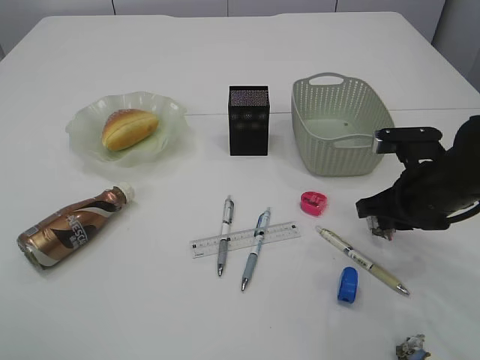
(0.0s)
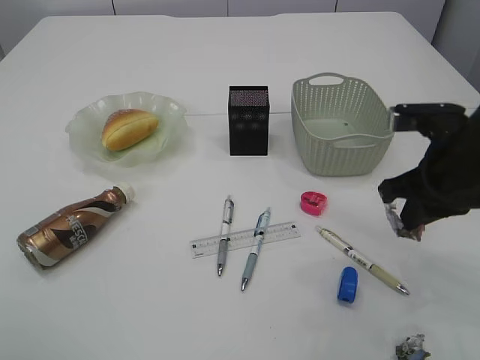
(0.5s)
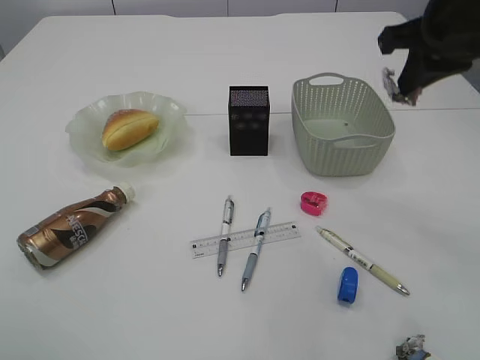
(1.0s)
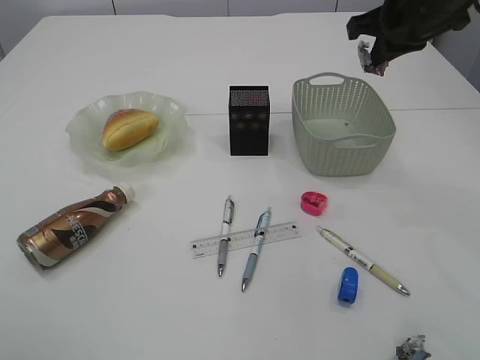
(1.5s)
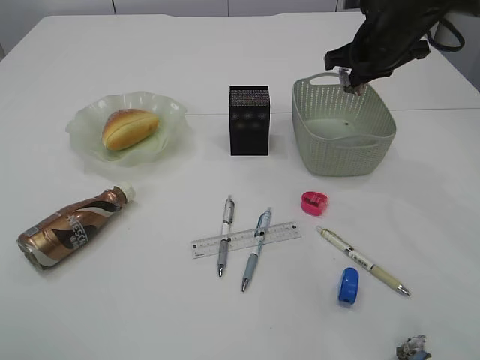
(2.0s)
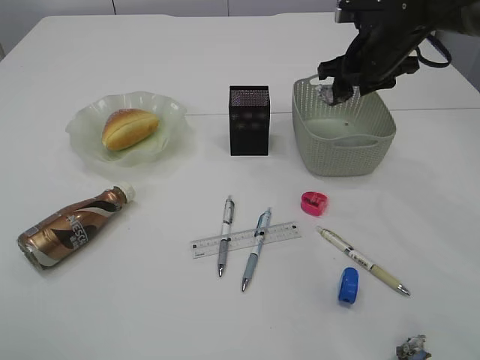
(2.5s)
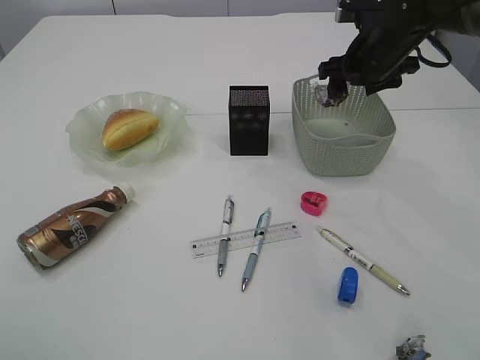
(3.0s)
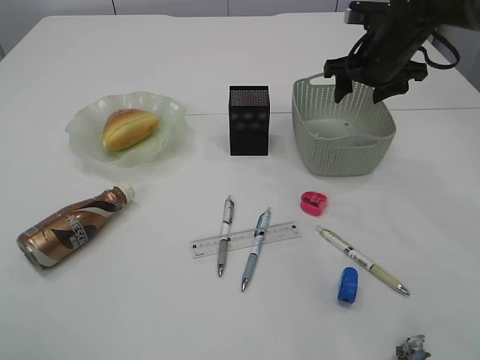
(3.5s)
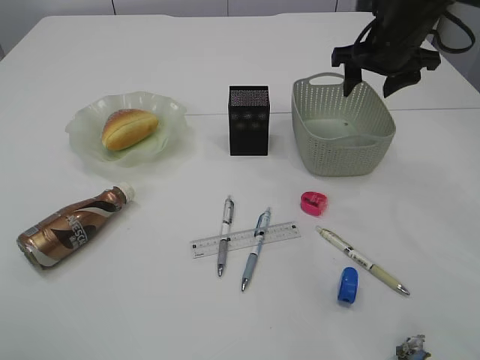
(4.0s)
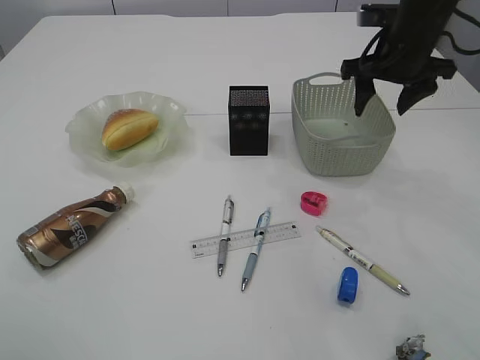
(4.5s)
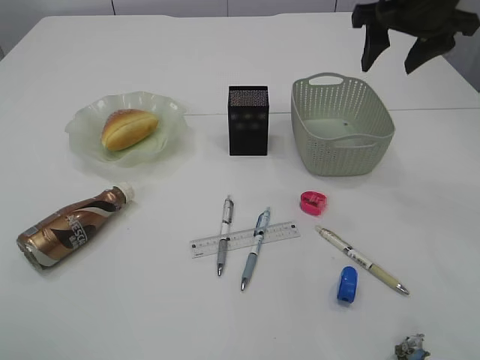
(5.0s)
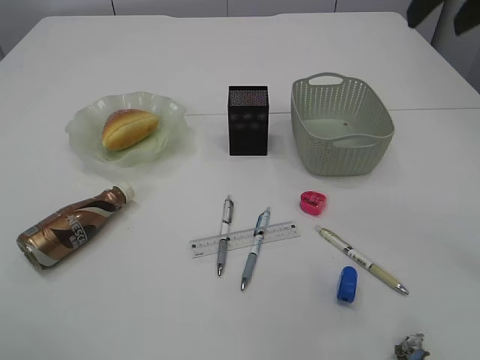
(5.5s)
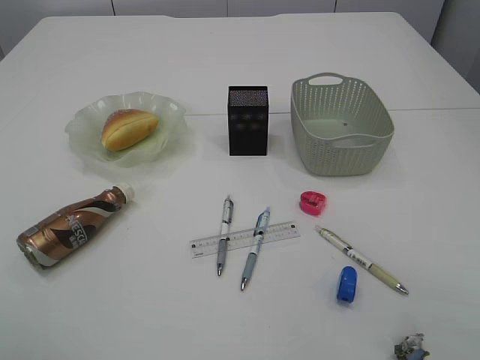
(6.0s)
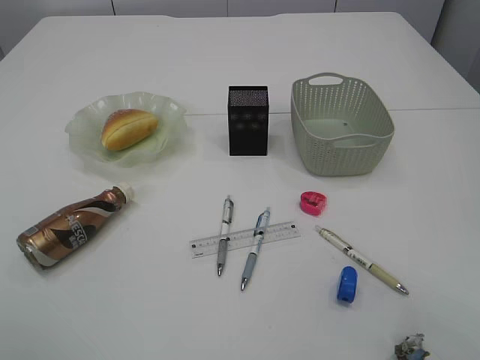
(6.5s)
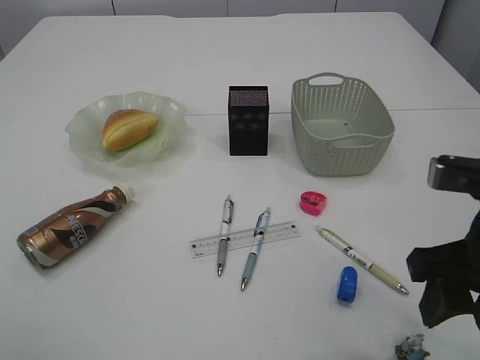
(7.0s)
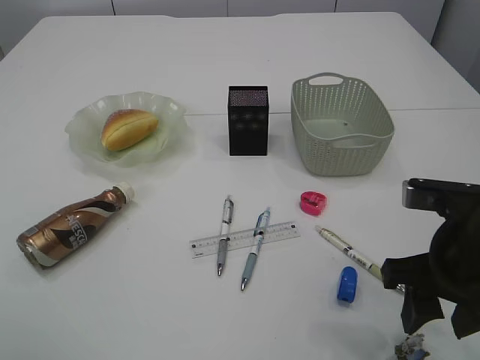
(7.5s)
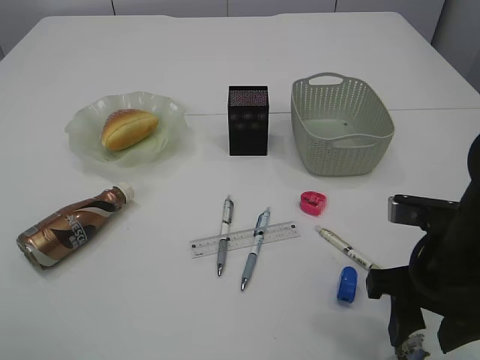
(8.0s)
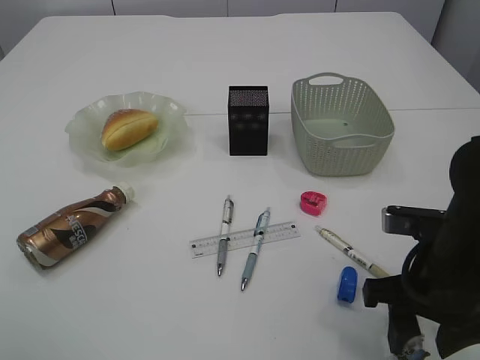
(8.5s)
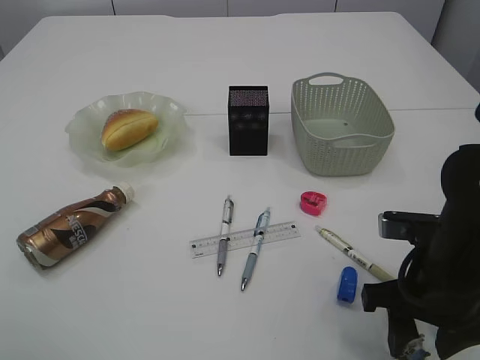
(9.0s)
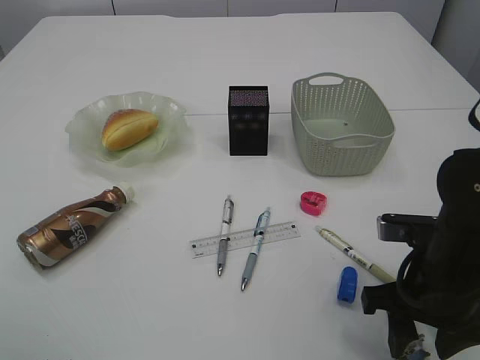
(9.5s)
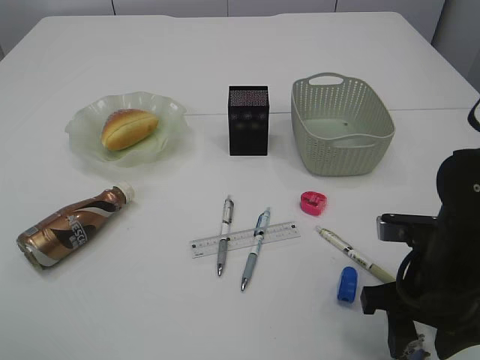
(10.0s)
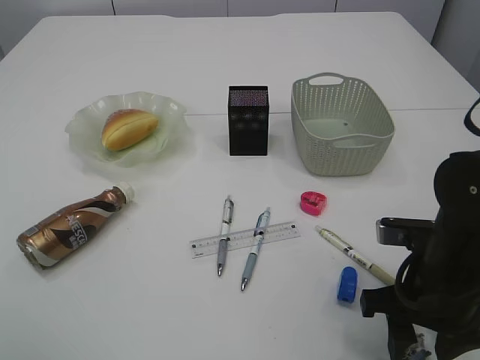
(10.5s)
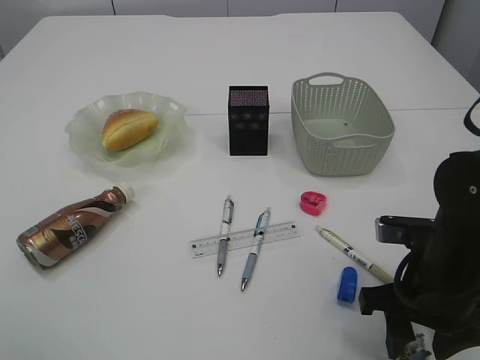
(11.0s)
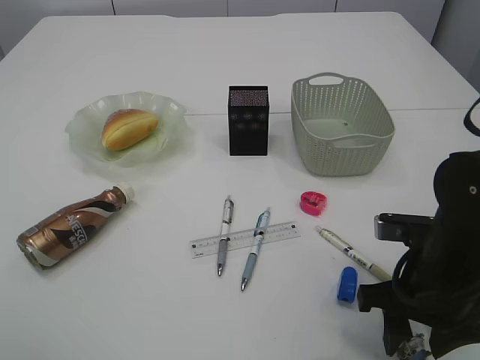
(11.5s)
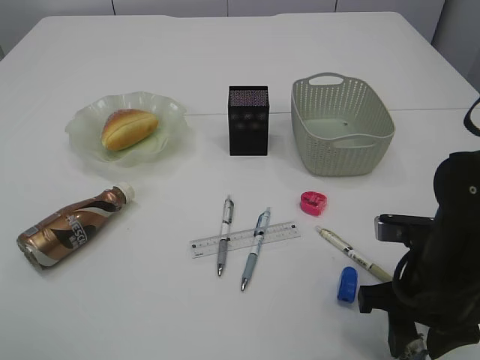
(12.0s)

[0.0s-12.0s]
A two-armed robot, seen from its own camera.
Step, 0.5s to 3.5s: Place the waste paper in the basket.
0.0s to 2.0s: The right gripper shifts some 20 cm forward and upward.
2.0s to 4.0s: The right gripper opens its fingers.
4.0s to 6.0s: The right gripper is displaced backward by roughly 30 cm.
6.0s to 8.0s: The right gripper moves downward, roughly 20 cm.
8.0s to 10.0s: There are only small adjustments of the grippers.
10.0s to 12.0s: Both grippers stay about where they are.

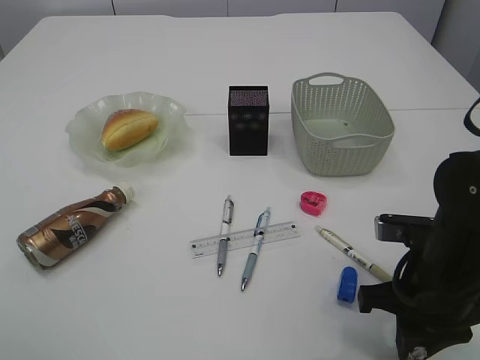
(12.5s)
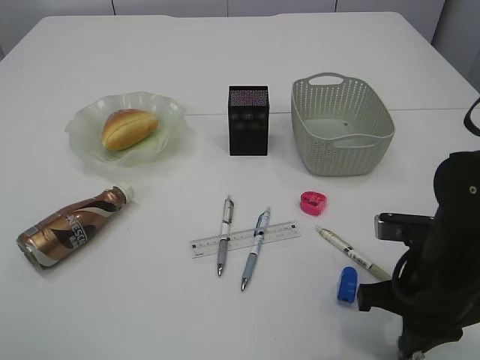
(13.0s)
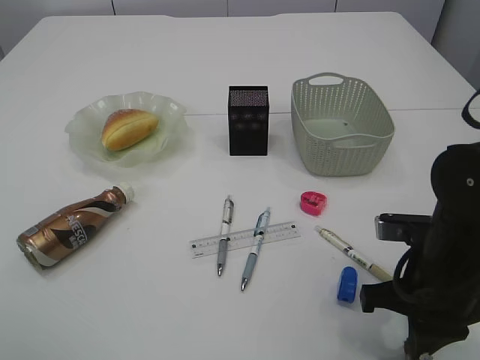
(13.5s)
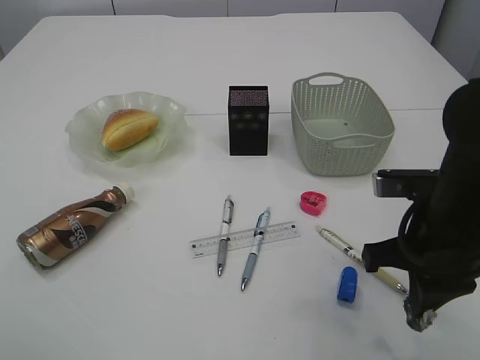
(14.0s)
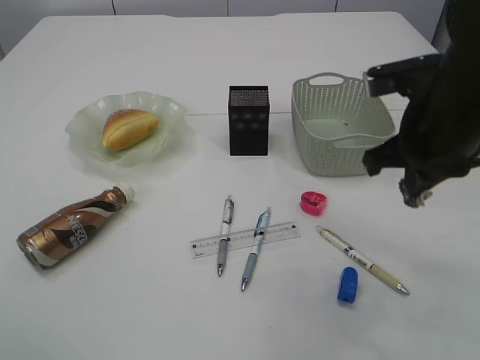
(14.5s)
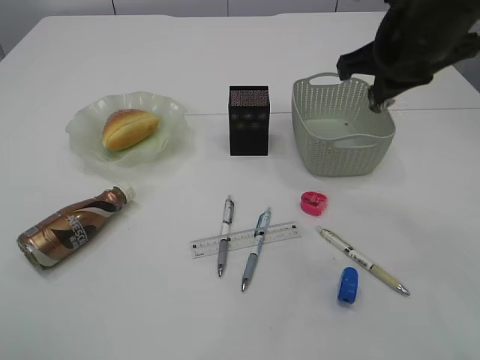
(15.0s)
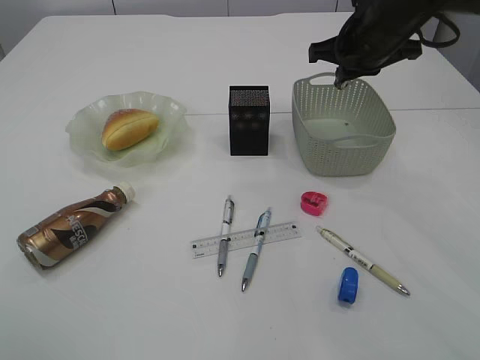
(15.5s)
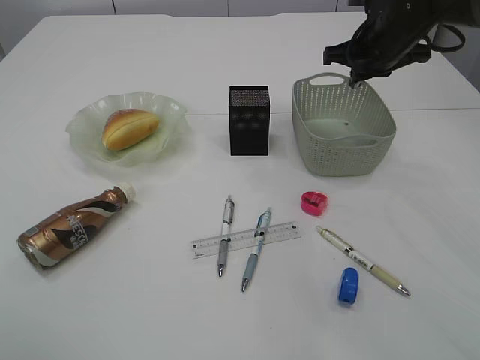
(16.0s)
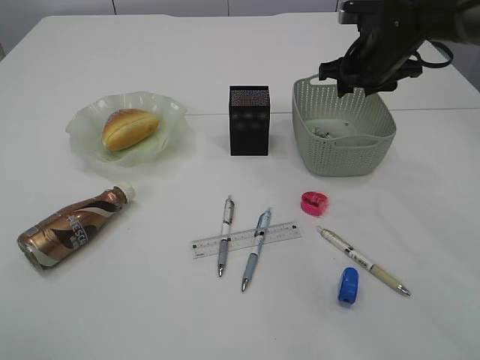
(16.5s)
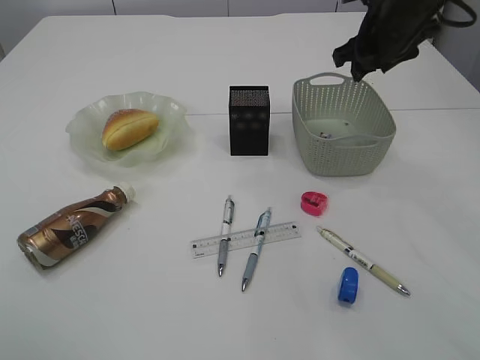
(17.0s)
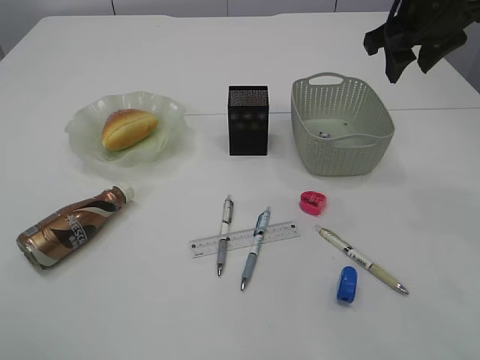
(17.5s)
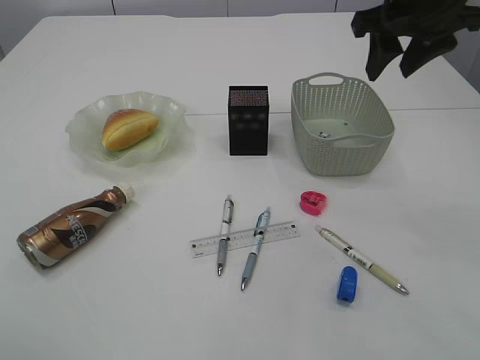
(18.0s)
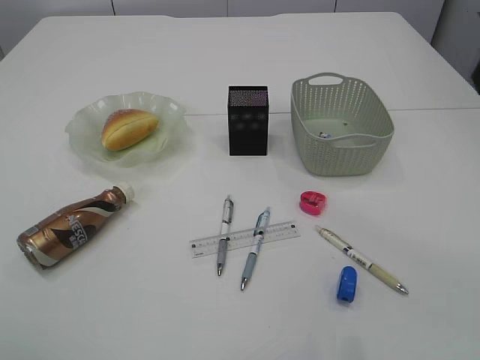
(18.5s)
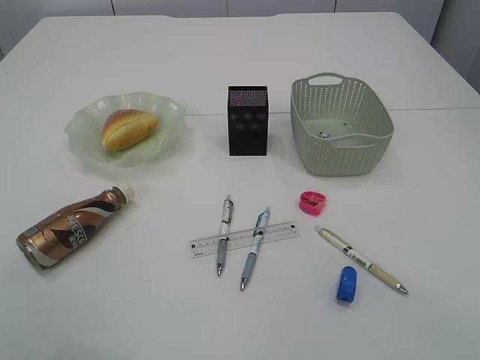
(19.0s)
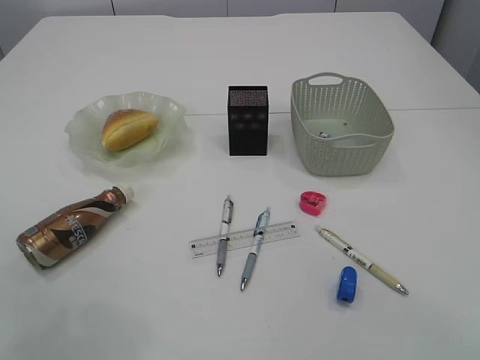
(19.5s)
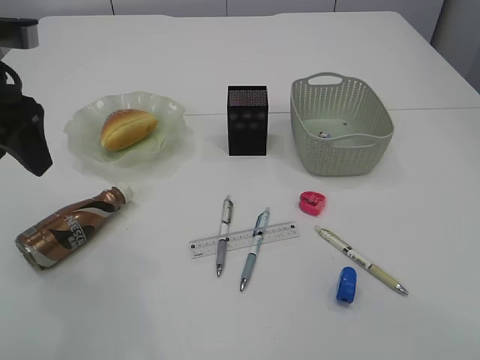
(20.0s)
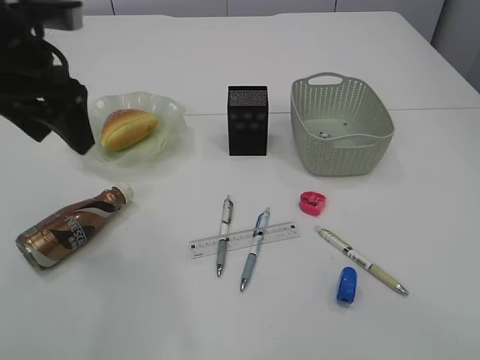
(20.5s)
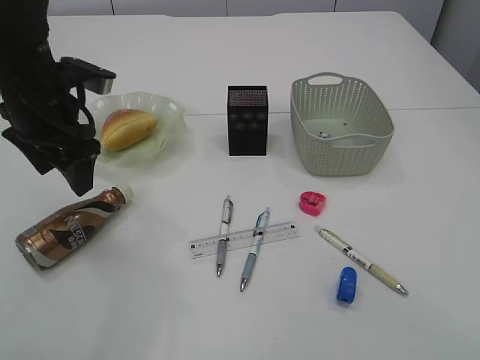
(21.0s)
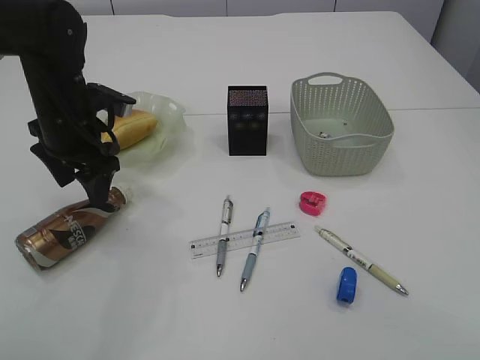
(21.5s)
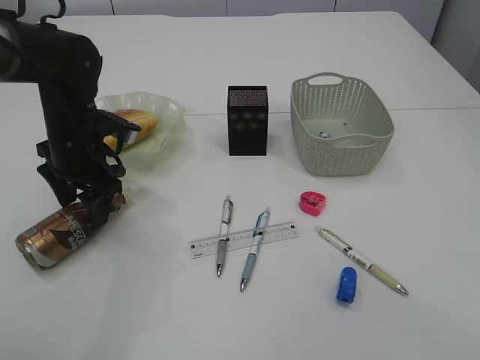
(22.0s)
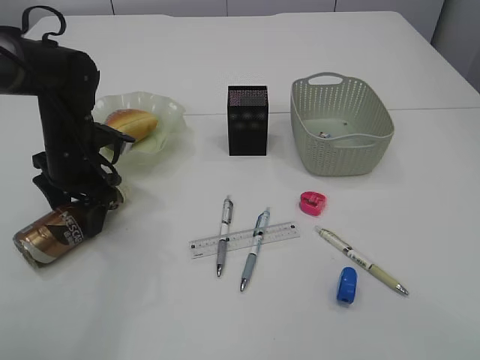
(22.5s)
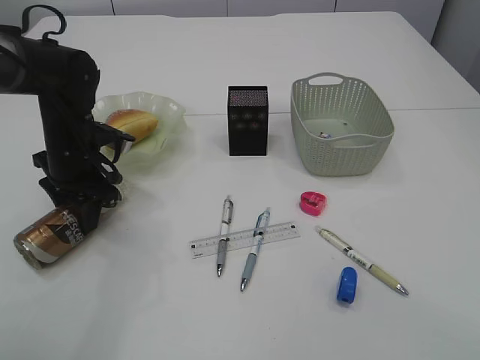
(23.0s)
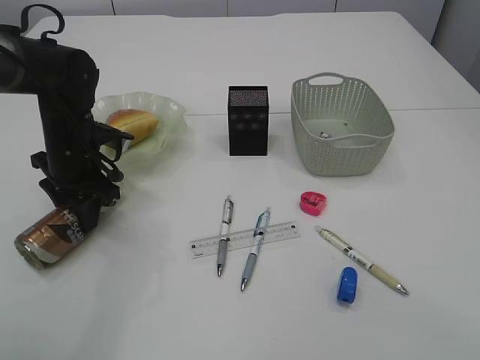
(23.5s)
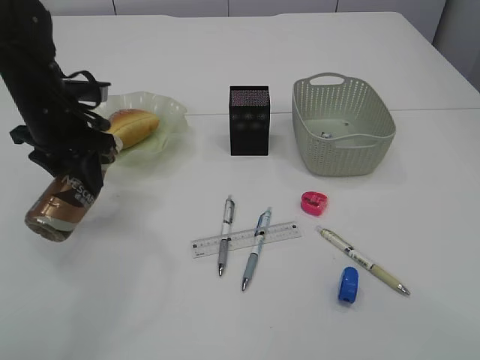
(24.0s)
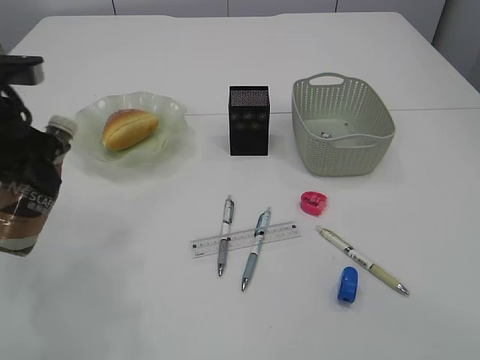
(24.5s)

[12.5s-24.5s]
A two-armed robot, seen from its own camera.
Step, 14.5s to 17.0s: Place the waste paper in the basket.
Step, 17.5s to 24.0s: Pick up the bottle with the left arm.
12.5s to 14.5s: The right gripper travels upward and forward by approximately 15 cm, and closes.
14.5s to 16.5s: The right gripper travels forward by roughly 20 cm, and opens.
16.5s to 18.5s: The right gripper shifts roughly 30 cm backward and upward.
18.5s to 20.5s: The left gripper is displaced forward and downward by approximately 20 cm.
20.5s to 22.5s: The left gripper goes approximately 15 cm downward.
22.5s to 24.5s: The left gripper shifts about 15 cm upward and backward, and closes its fingers.

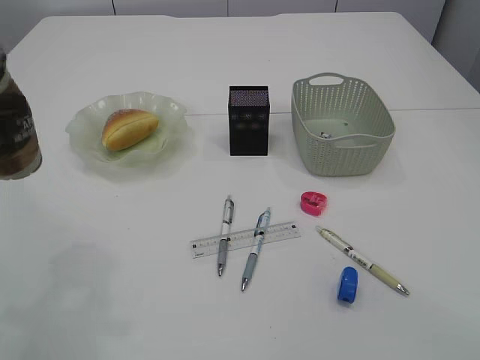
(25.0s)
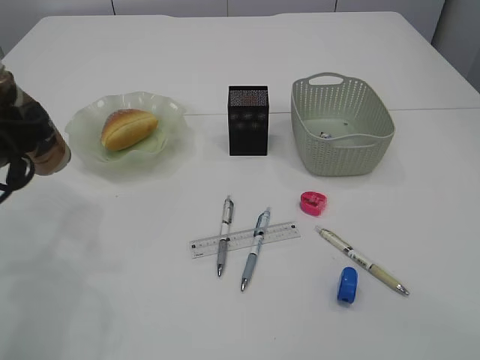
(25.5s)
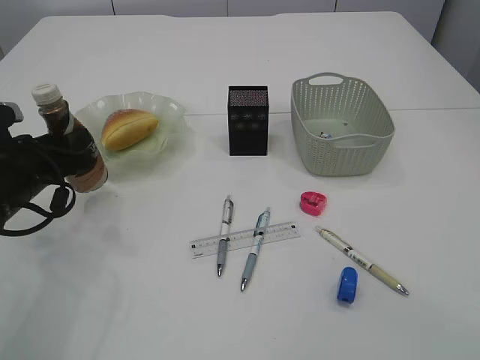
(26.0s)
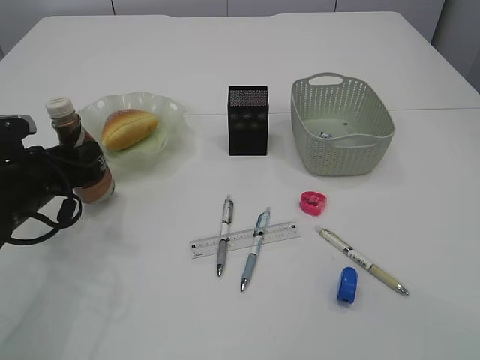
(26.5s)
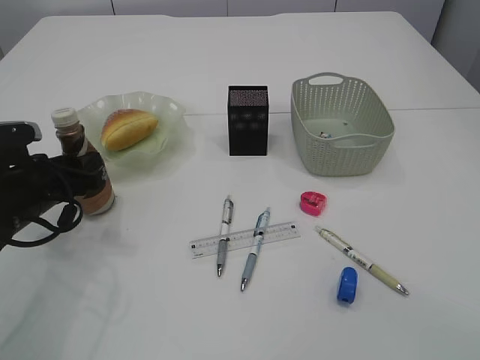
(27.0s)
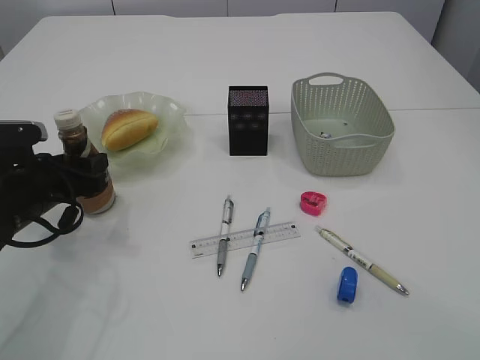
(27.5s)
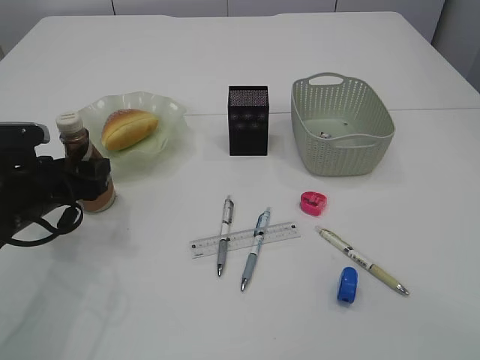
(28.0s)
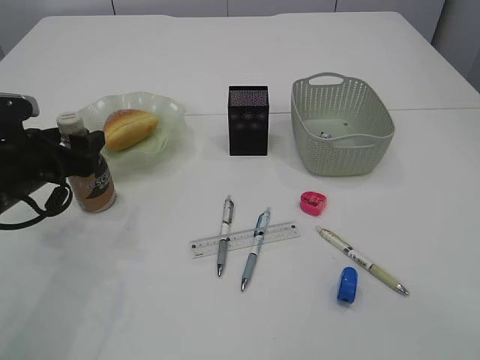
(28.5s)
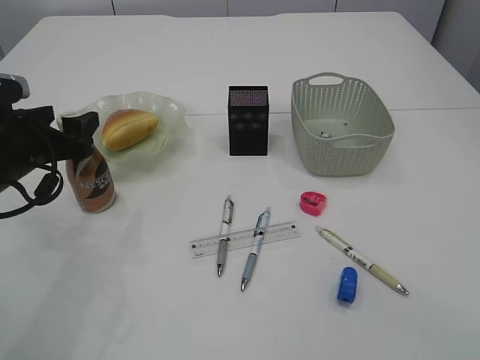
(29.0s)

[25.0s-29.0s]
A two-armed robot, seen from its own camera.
25.0s to 27.0s: The left gripper heads downward and forward, covering roughly 15 cm.
27.0s to 29.0s: The left gripper travels upward by roughly 5 cm, and opens its fingers.
